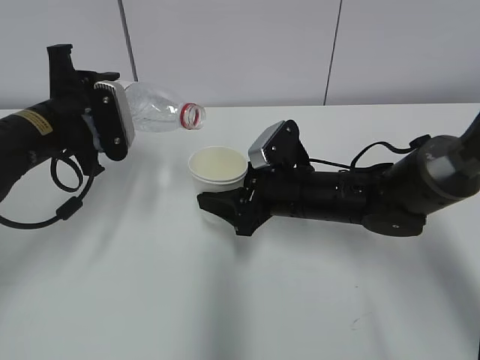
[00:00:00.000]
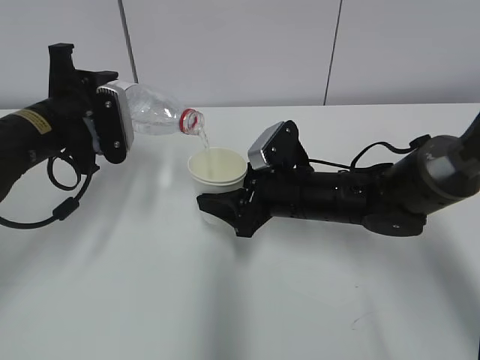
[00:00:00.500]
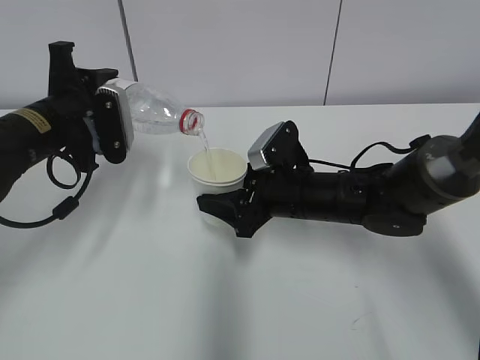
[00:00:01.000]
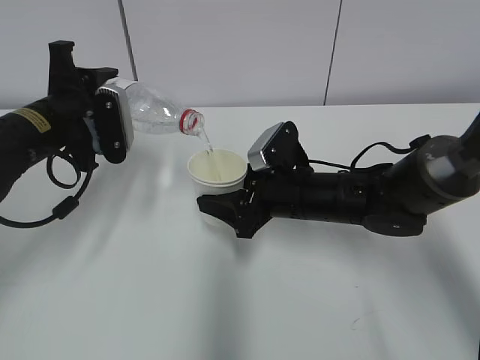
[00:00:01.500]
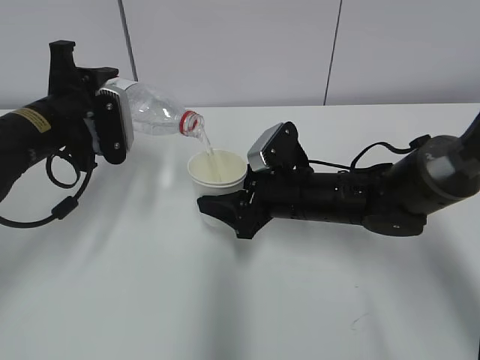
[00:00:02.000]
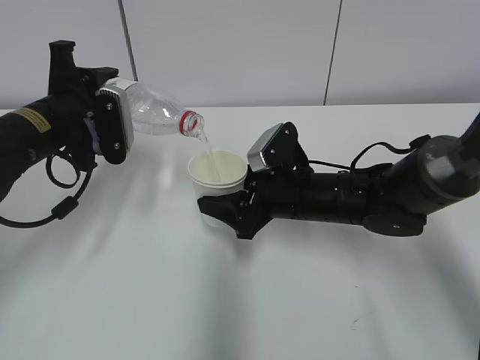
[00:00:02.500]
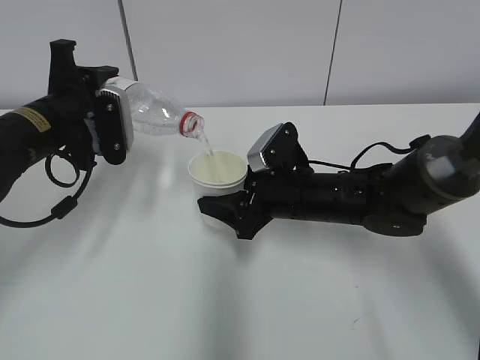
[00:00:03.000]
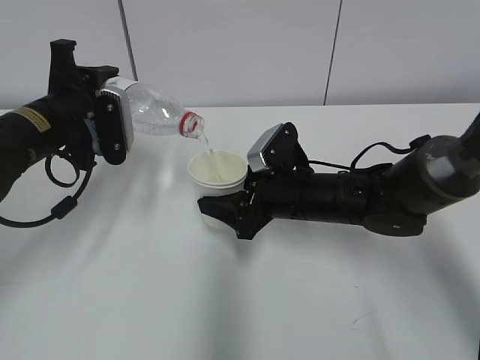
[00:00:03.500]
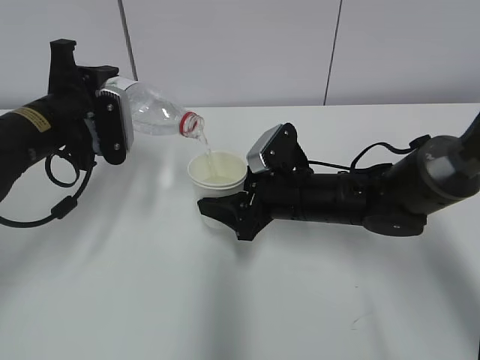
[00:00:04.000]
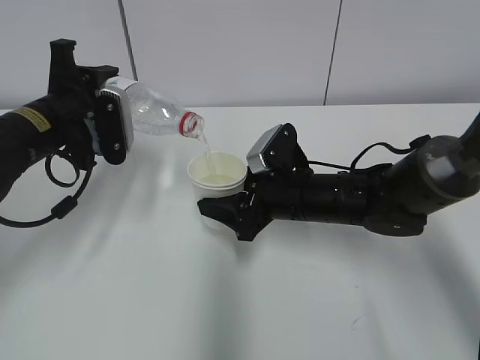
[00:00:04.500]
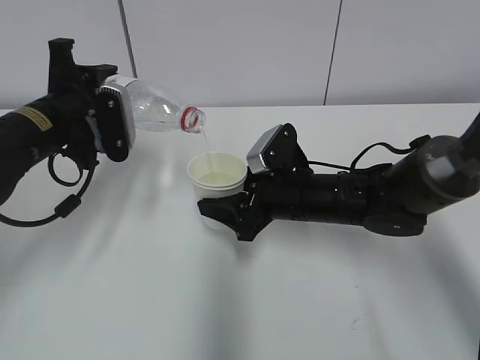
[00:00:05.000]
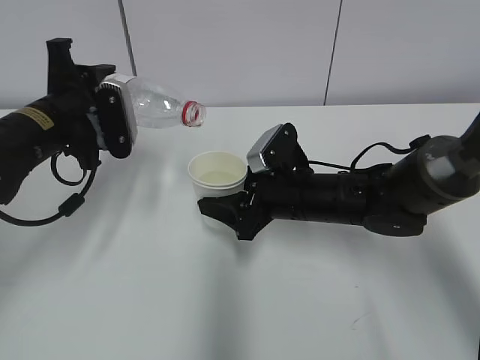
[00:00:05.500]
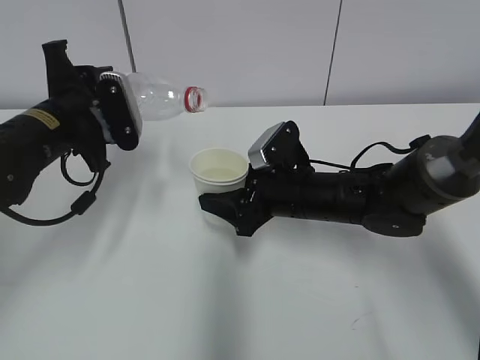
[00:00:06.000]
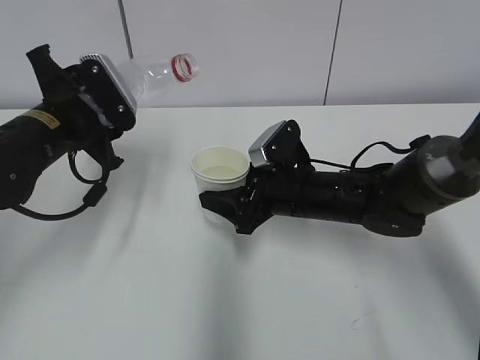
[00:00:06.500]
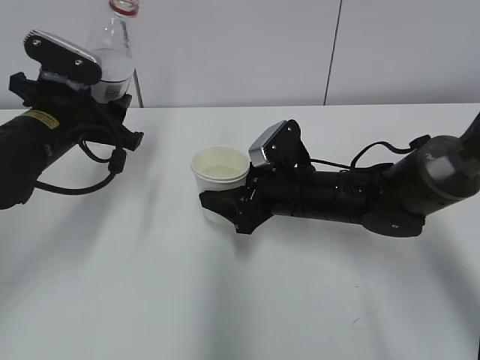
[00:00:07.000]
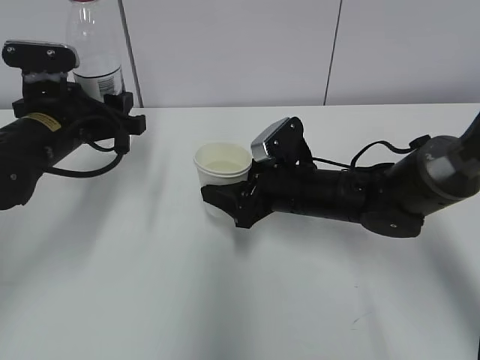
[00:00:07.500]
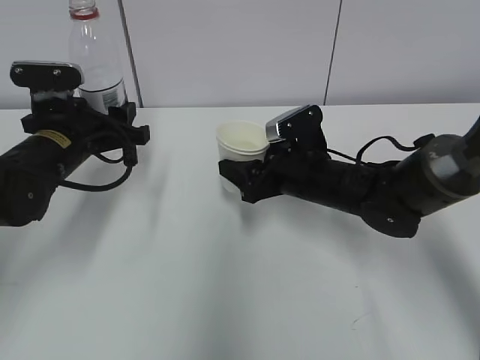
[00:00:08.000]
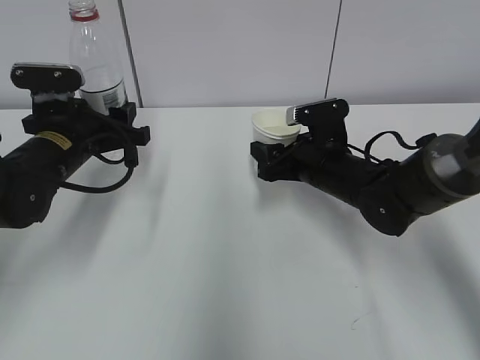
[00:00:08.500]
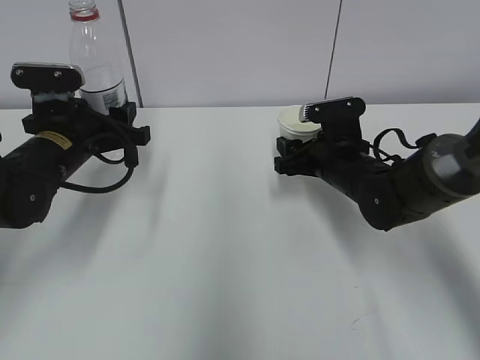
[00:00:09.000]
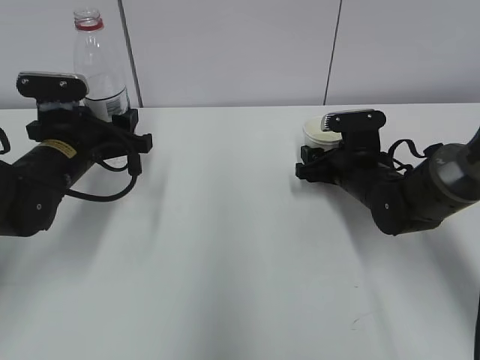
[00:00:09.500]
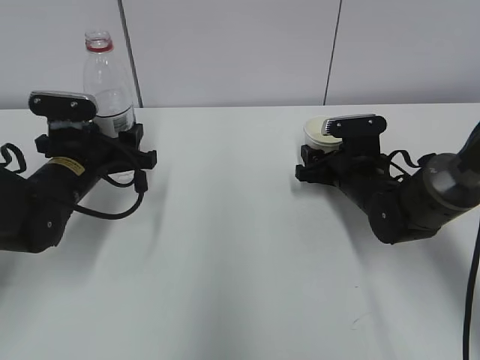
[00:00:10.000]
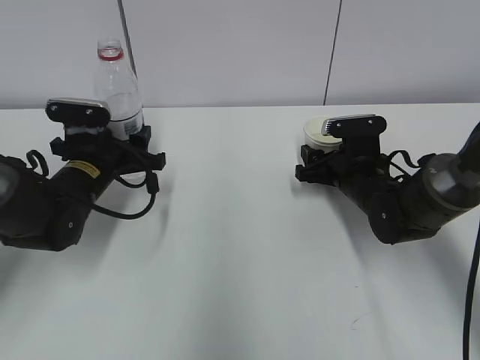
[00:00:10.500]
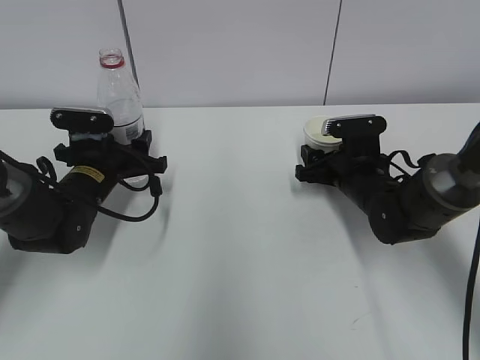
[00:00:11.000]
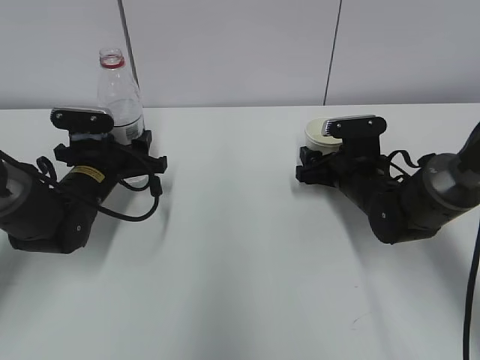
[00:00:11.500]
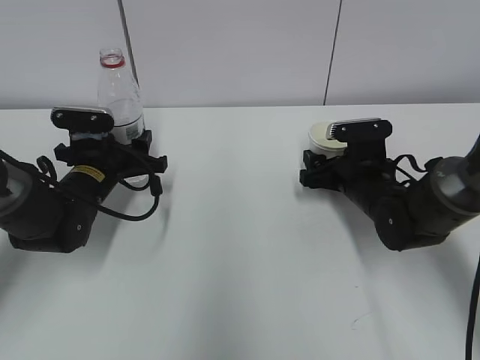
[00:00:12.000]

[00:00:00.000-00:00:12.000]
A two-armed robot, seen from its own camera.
Step, 00:00:00.000 to 00:00:02.500: Fill water with the right hand.
Step, 00:00:00.000 to 00:00:02.500: Pour water with the left hand.
Step, 00:00:04.500 to 00:00:09.500: Place the paper cup with the right hand.
Step, 00:00:10.000 to 00:00:11.500: Place the water bottle with the left hand.
00:00:00.000 to 00:00:02.000: There are only small adjustments of the grippers.
00:00:02.000 to 00:00:04.000: Neither gripper changes place.
00:00:04.000 to 00:00:06.000: The grippers stay close to where they were, moving slightly.
00:00:08.000 to 00:00:10.000: The right gripper is displaced to the right by about 5 cm.
00:00:10.000 to 00:00:12.000: The right gripper opens up.

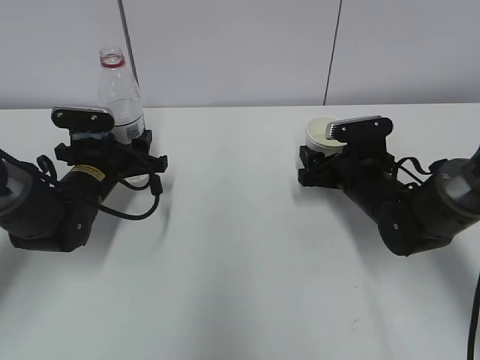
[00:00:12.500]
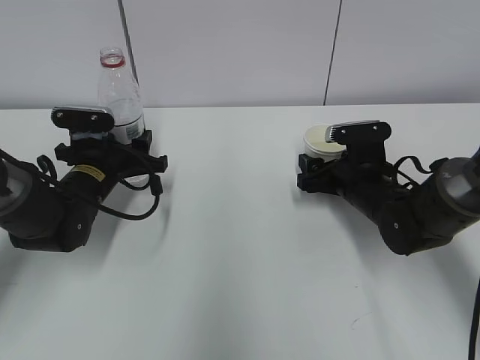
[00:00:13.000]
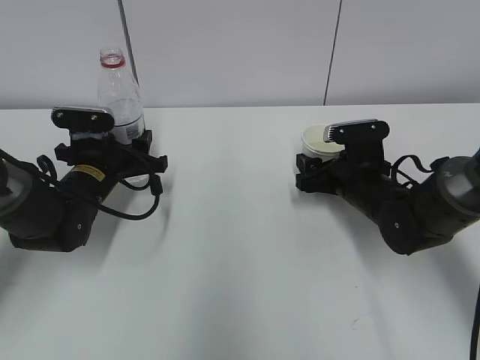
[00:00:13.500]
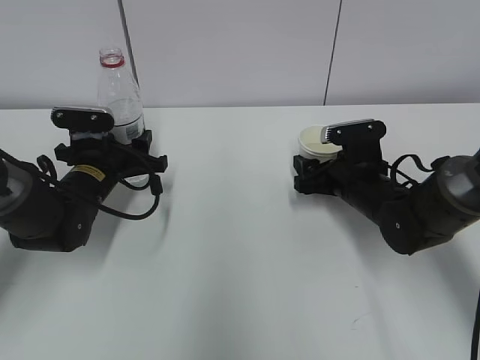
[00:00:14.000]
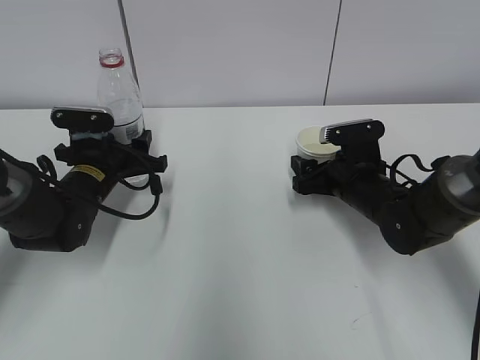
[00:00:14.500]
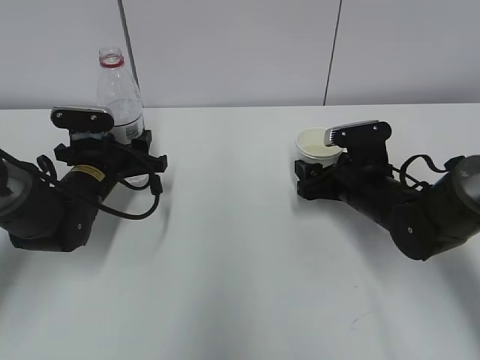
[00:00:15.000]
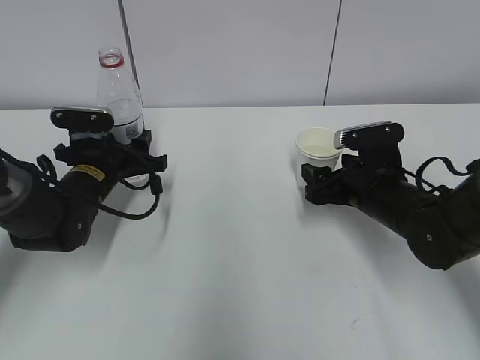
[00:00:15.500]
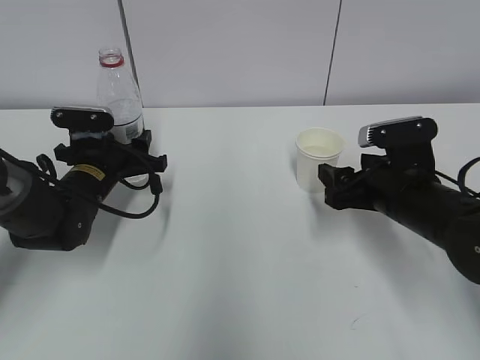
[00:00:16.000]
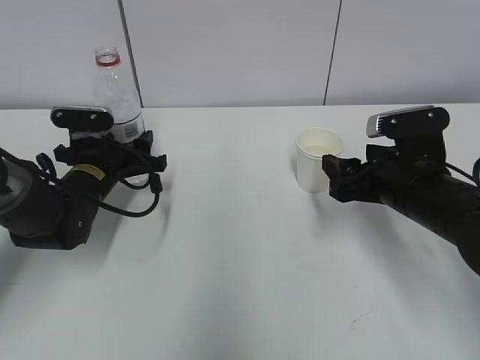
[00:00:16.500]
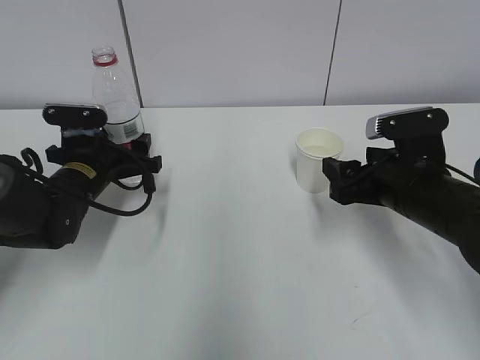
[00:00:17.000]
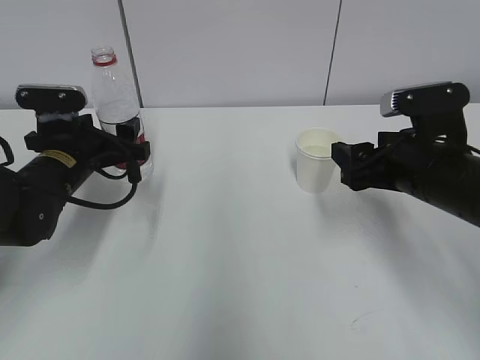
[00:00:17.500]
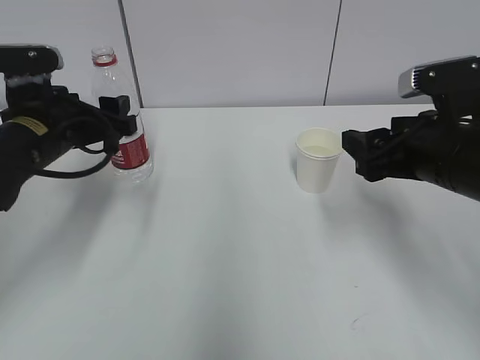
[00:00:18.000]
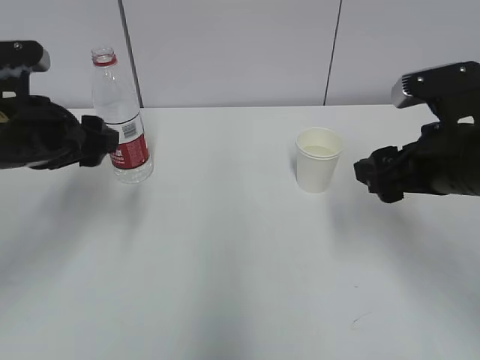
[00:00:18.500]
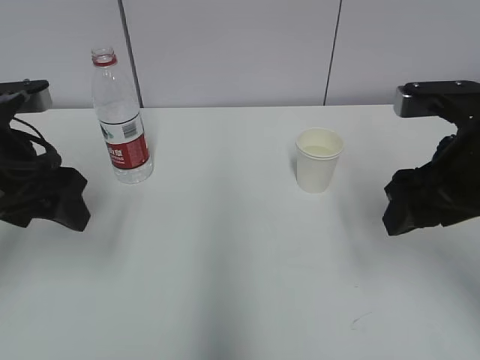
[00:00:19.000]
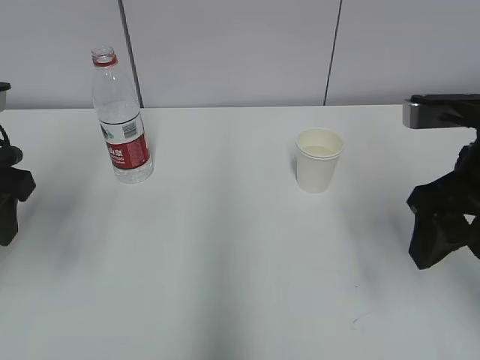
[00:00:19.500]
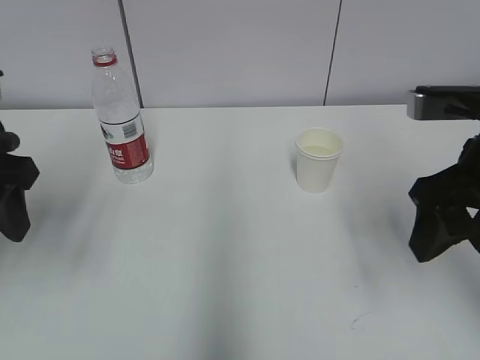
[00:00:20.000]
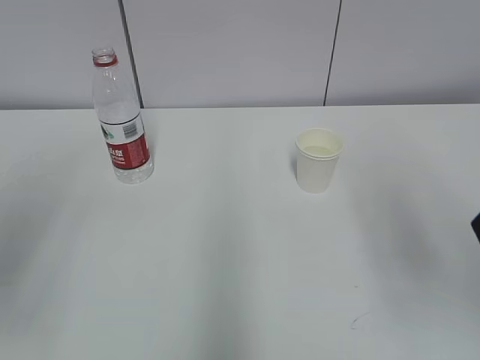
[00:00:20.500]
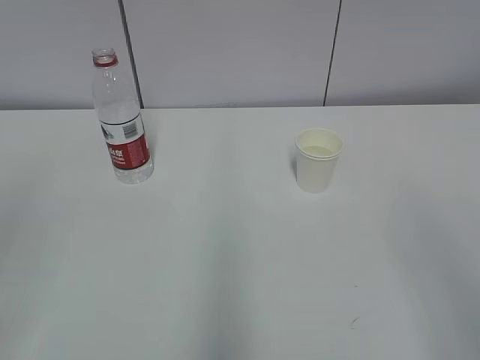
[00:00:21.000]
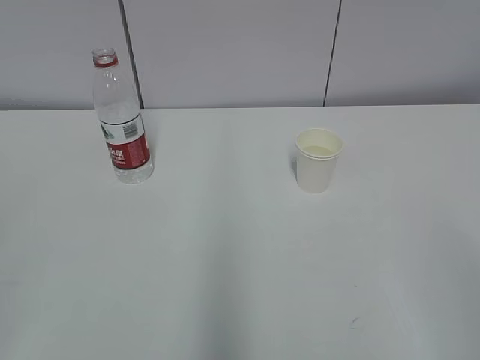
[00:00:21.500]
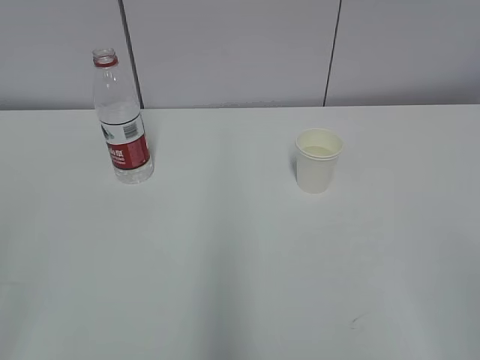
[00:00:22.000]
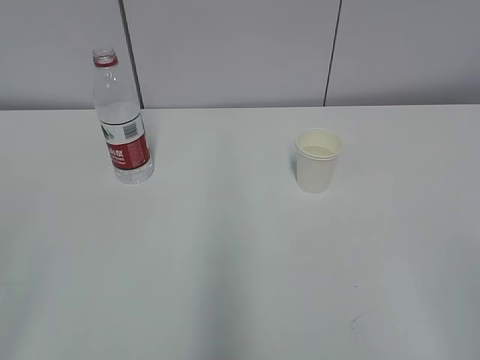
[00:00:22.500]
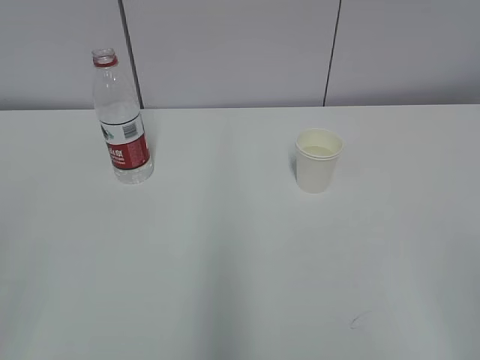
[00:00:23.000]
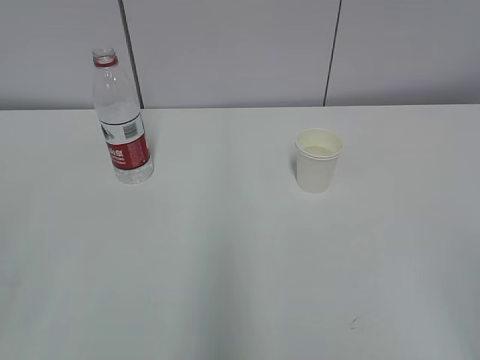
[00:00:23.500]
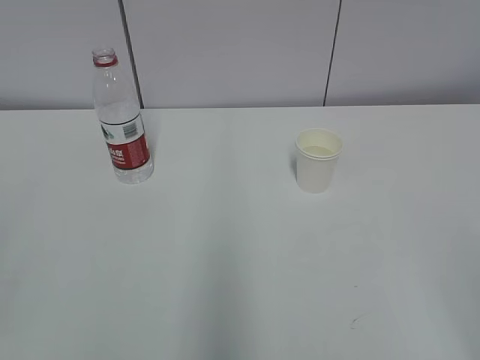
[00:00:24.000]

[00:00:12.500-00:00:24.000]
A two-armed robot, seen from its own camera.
00:00:12.500 to 00:00:14.500: The grippers stay close to where they were, moving slightly.
00:00:14.500 to 00:00:16.500: The right gripper travels backward and upward by some 10 cm.
00:00:16.500 to 00:00:18.500: The left gripper is displaced upward and backward by approximately 15 cm. Meanwhile the right gripper goes about 10 cm upward.
00:00:18.500 to 00:00:20.000: The right gripper moves upward, about 5 cm, and closes its fingers; the left gripper heads upward and backward, covering roughly 10 cm.
00:00:20.000 to 00:00:22.000: The grippers both shift backward by roughly 25 cm.
